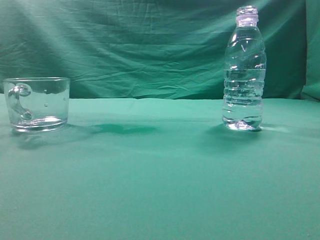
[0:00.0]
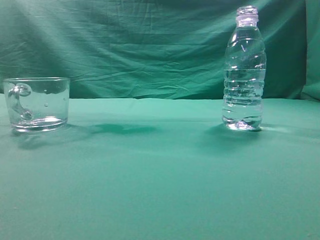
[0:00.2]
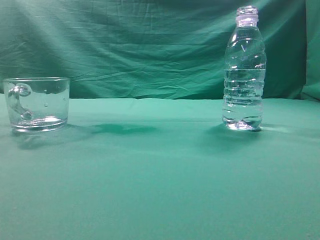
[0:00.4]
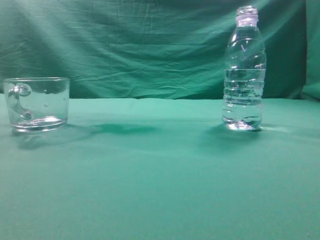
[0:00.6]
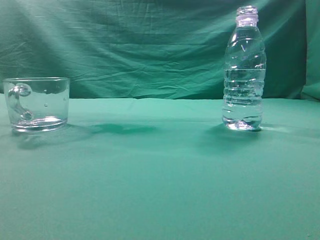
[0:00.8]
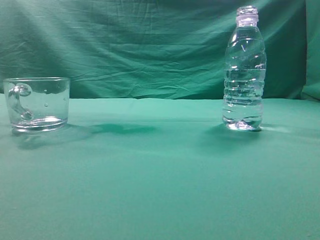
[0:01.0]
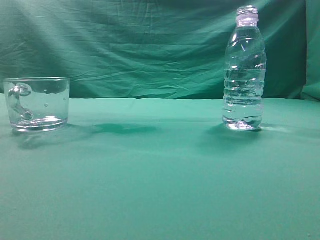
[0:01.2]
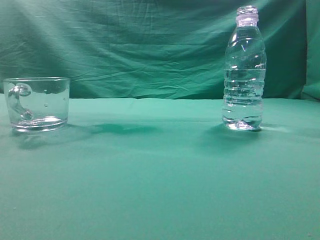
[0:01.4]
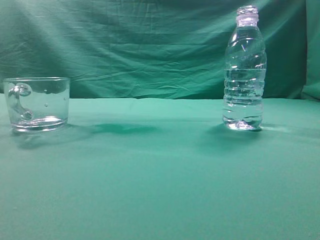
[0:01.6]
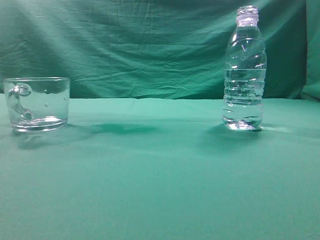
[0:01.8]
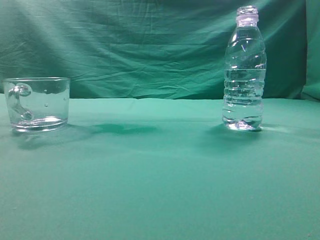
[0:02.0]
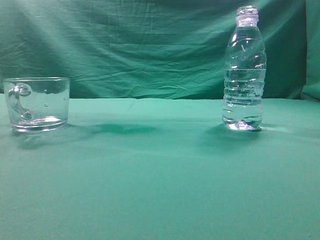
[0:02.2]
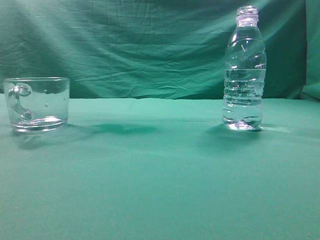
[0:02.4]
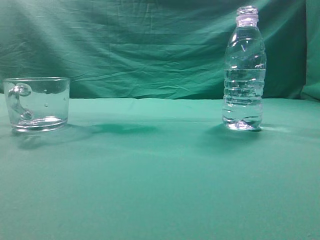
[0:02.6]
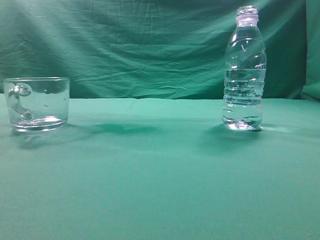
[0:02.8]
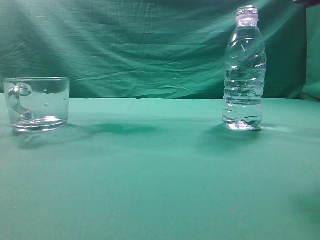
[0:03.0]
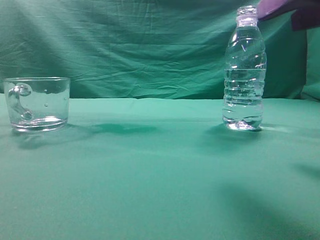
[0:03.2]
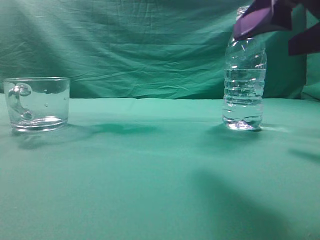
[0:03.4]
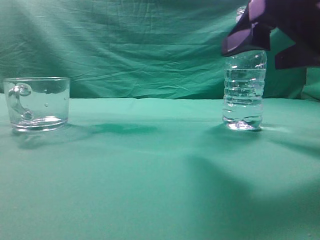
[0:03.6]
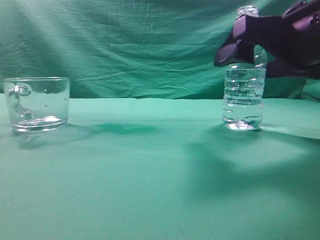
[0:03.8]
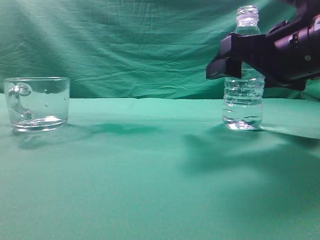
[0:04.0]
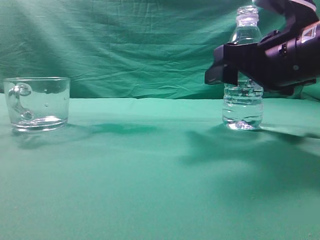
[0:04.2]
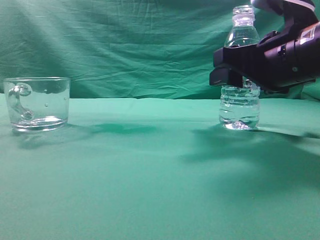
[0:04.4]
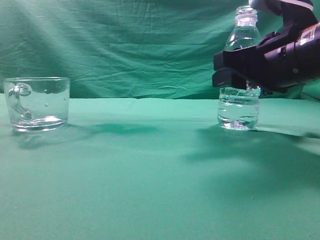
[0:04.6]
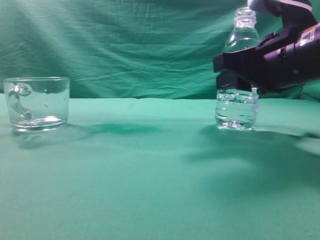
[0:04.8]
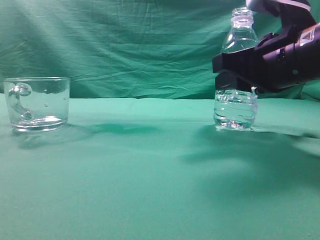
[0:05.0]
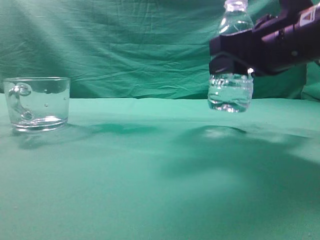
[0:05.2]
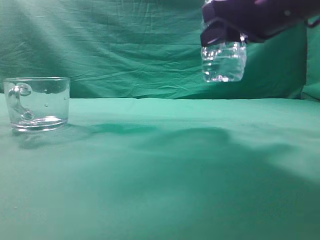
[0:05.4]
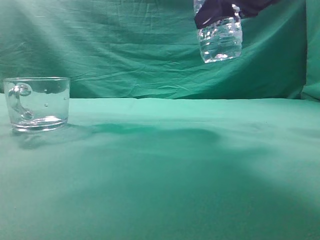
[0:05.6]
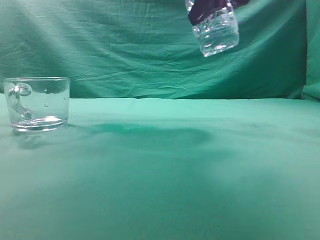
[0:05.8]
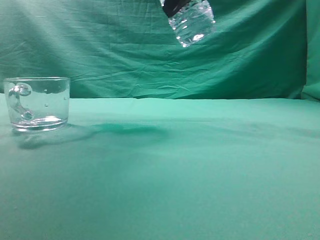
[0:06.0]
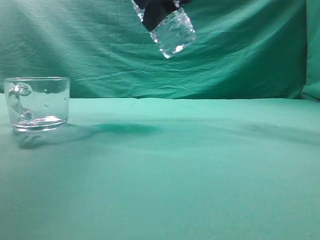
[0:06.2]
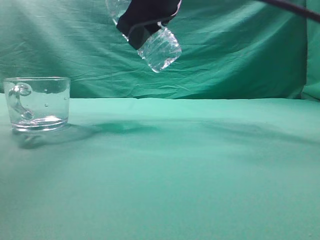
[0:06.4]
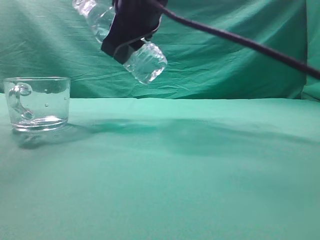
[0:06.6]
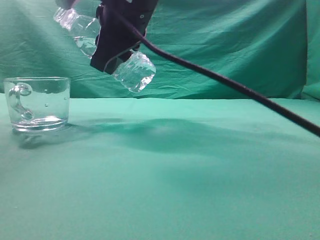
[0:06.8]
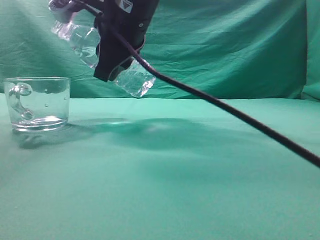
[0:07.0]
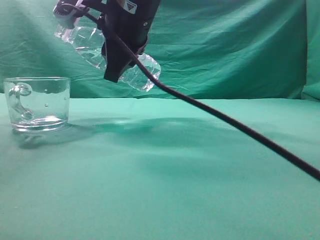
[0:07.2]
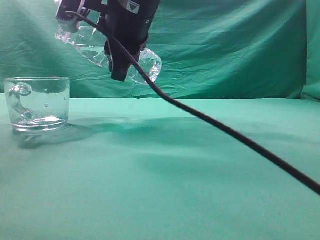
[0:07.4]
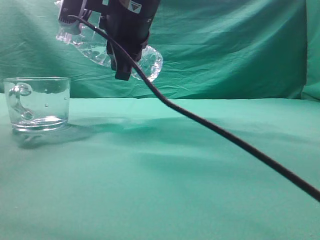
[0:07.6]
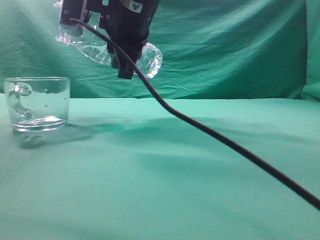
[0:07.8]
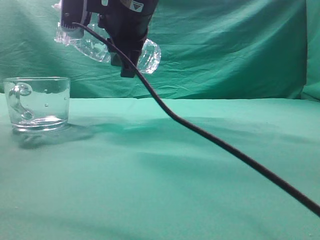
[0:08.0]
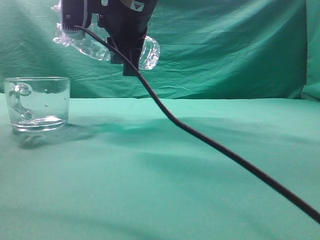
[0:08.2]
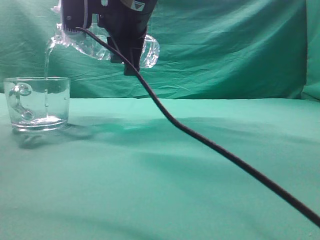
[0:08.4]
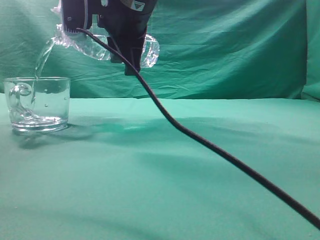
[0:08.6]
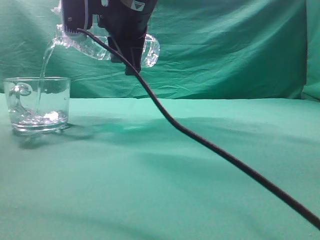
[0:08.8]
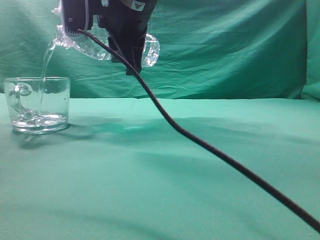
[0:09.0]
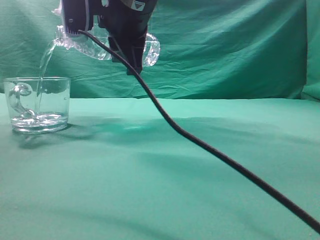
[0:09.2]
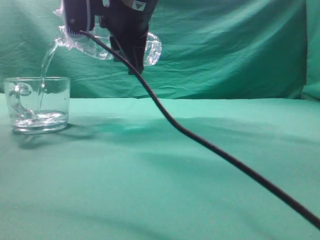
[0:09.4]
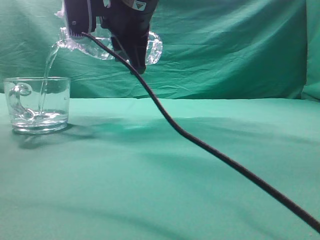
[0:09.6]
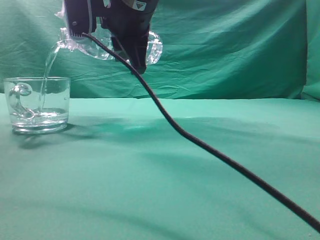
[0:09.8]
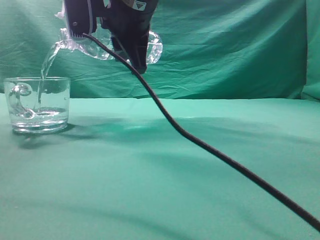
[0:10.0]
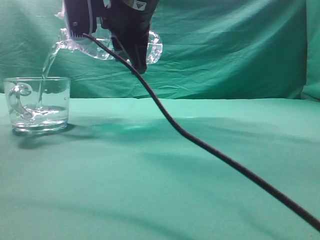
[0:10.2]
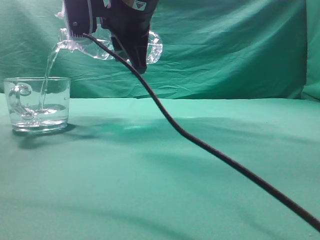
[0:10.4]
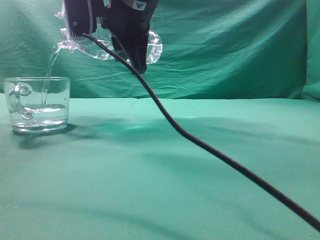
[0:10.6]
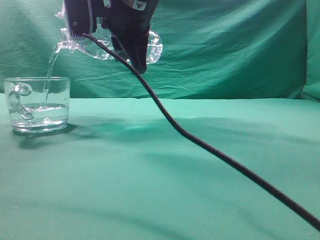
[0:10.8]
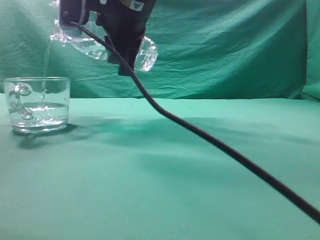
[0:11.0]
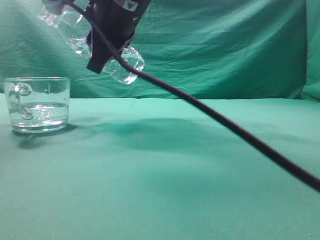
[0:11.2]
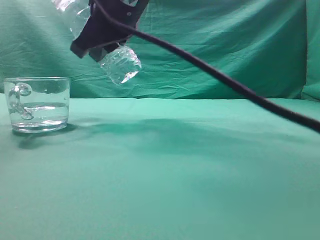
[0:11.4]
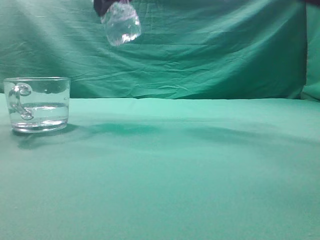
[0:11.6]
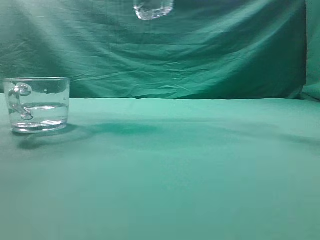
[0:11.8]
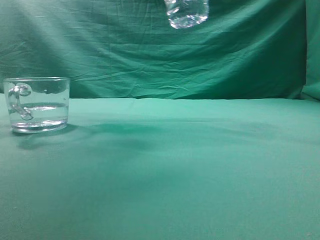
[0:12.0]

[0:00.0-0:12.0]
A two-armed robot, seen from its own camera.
Task of the whole recording: pick up the water bottle and pour the water in it into the glass.
Step, 0:00.0 to 0:05.2: Grasp the mineral water bottle.
Step, 0:05.4 to 0:11.4: Pour water into the teacup.
0:03.0 to 0:04.4: The right gripper goes about 15 cm forward and downward, and opens.
0:04.4 to 0:06.0: The right gripper travels upward and to the left by about 20 cm.
0:06.0 to 0:07.6: The right gripper heads to the left and downward, covering approximately 15 cm.
0:07.6 to 0:09.0: The grippers make only small movements.
0:09.0 to 0:10.4: The two grippers keep their place.
0:10.4 to 0:12.0: The right gripper moves to the right and upward, approximately 15 cm.

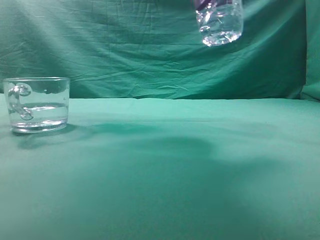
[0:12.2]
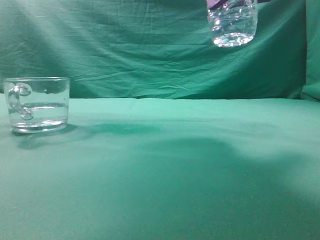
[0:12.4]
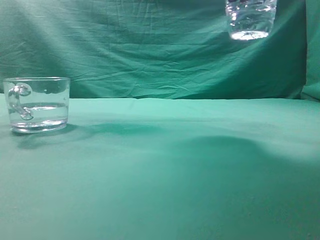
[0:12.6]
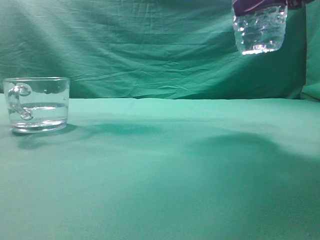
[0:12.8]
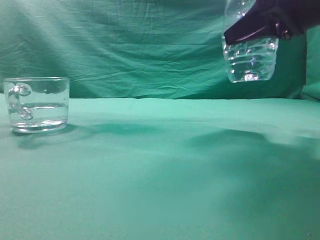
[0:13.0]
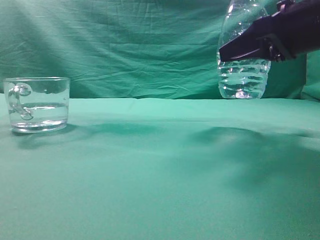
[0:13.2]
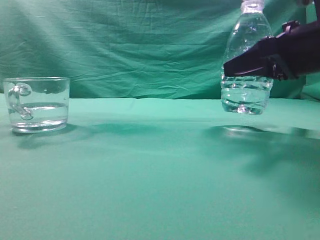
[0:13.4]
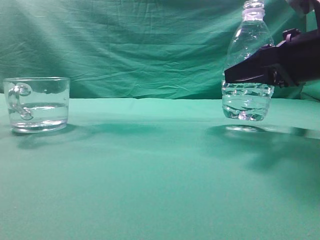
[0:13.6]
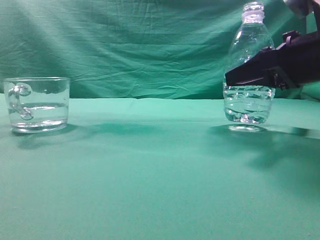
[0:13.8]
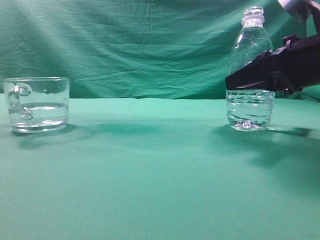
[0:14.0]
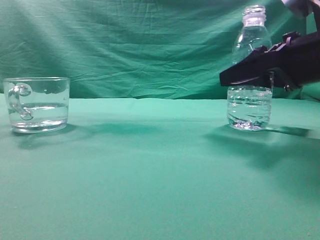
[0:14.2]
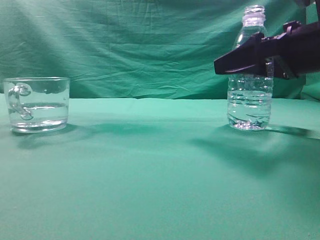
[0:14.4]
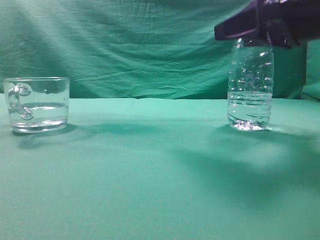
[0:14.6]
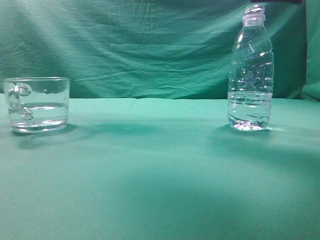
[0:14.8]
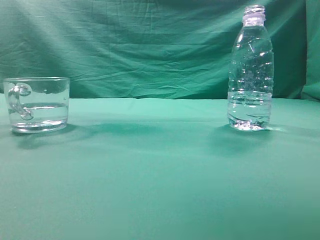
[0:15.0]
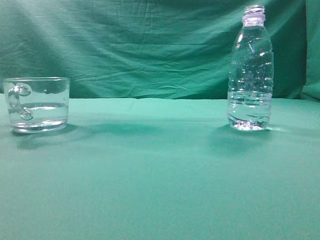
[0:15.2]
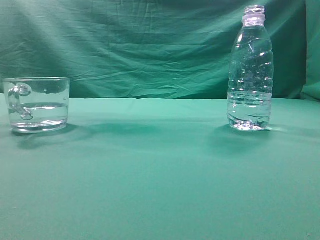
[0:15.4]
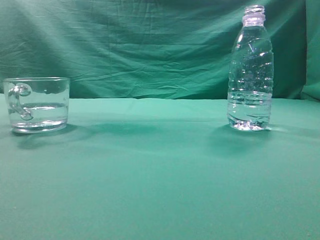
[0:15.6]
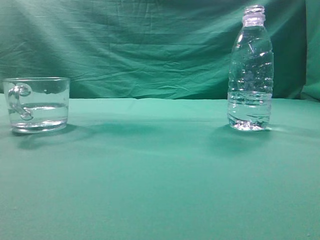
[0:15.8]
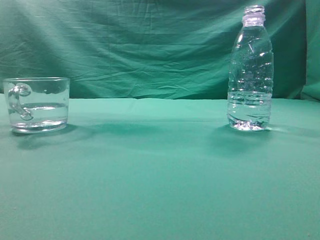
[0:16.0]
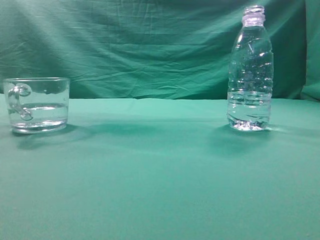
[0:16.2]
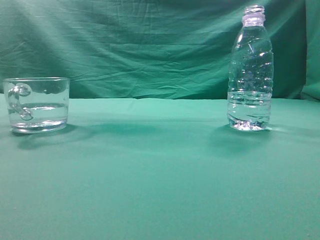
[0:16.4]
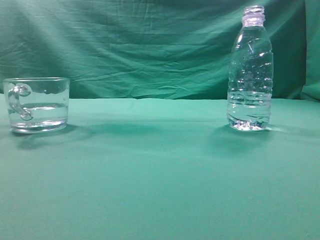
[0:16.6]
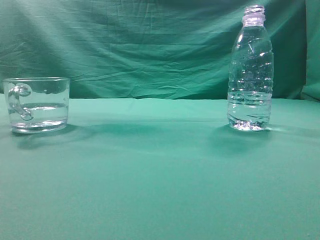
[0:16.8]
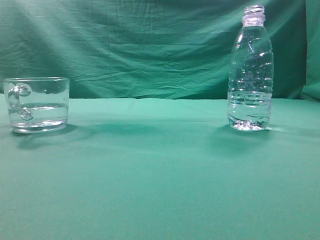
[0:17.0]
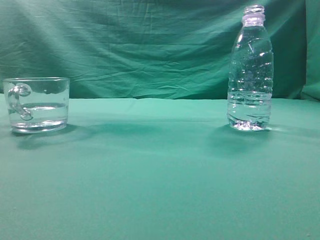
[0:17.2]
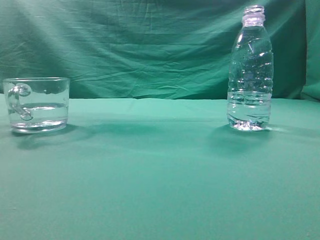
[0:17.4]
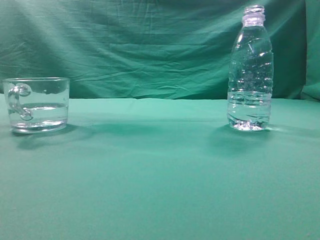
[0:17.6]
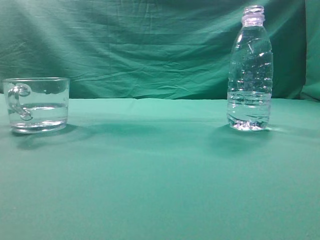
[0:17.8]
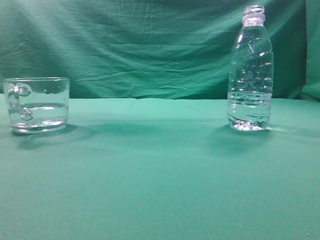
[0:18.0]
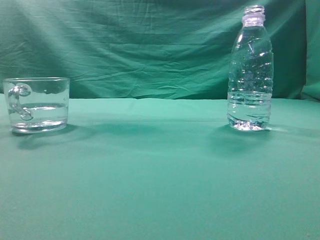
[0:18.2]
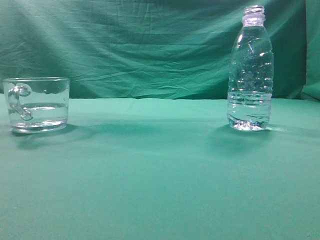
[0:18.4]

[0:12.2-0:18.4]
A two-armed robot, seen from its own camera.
Task of the whole recording: pick up the water bottle and pour the water in it into the glass.
0:12.2 to 0:13.8: The right gripper shifts some 15 cm downward and to the right.
0:13.8 to 0:15.4: The right gripper travels upward and backward by approximately 30 cm, and closes its fingers.
